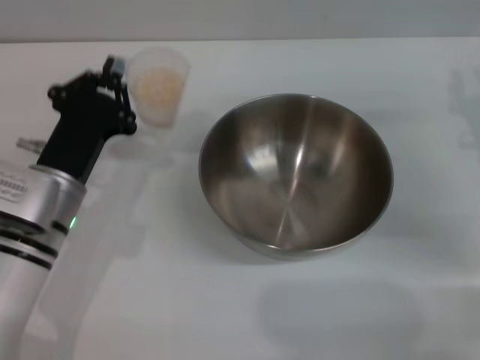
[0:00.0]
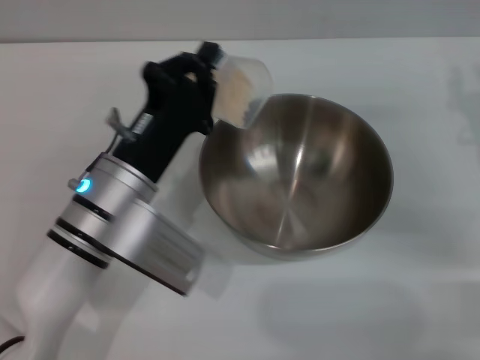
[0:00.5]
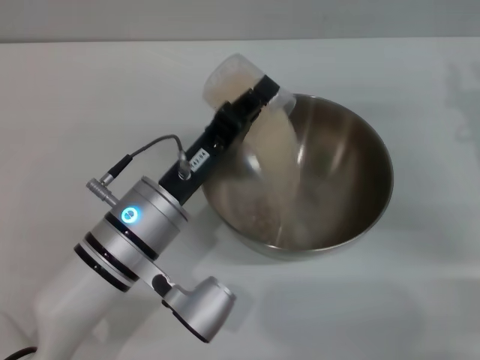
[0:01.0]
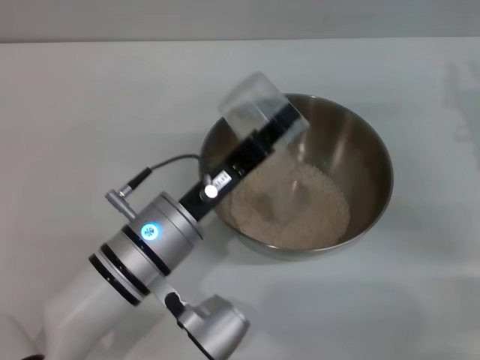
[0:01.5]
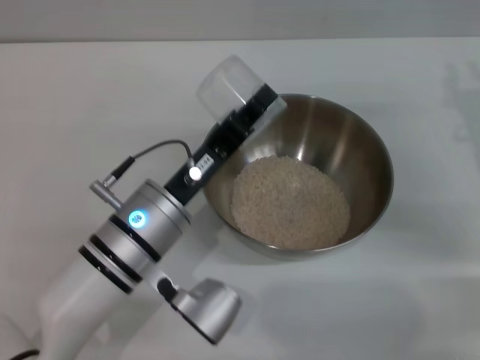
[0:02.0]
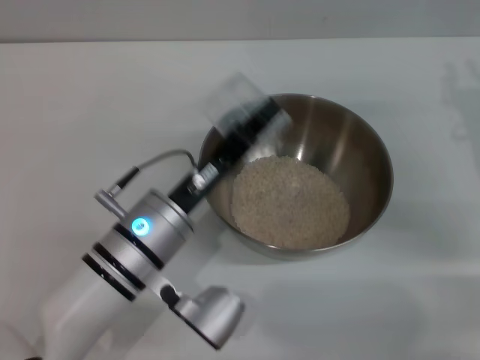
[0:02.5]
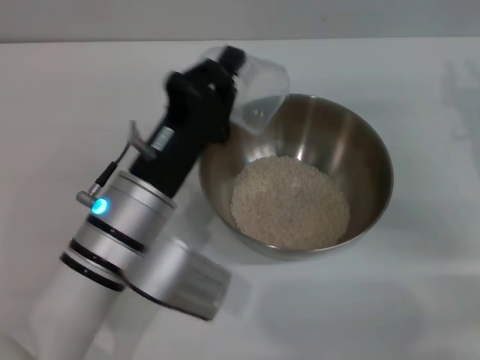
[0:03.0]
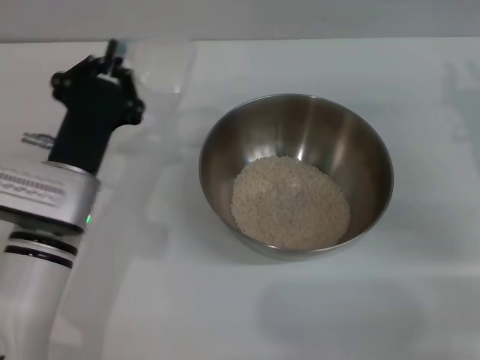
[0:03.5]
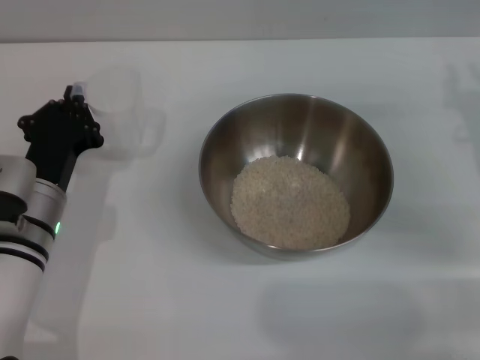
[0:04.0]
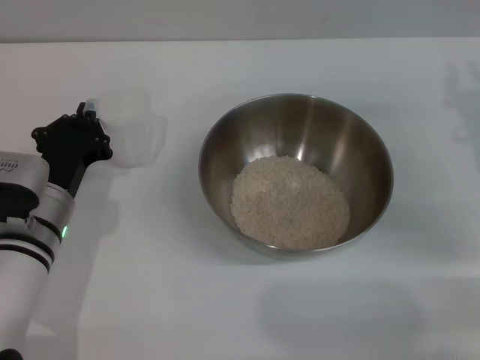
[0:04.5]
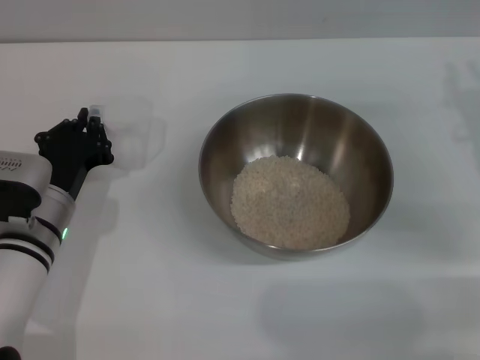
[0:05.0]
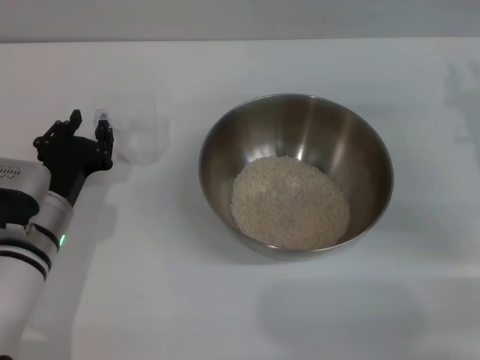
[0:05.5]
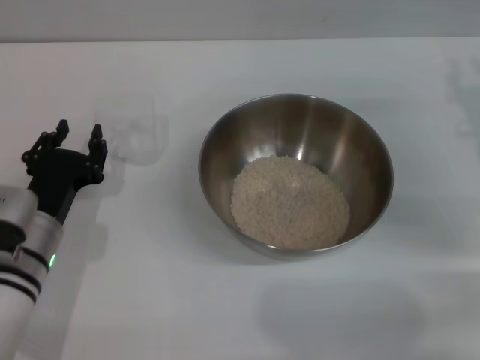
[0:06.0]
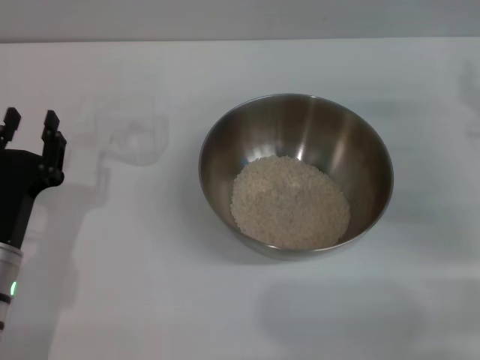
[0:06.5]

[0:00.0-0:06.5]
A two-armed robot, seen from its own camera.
Task of the whole recording: Place the bowl in the middle of the table with one hand and pour the rice from the grain cup into it with the other hand.
Step, 0:00.5 to 0:03.0: Pour the rice from the cup into the bowl with the left gripper.
Step, 0:03.5 to 0:06.0: Place the cup on the table with the left gripper.
0:00.0 to 0:02.0: The left gripper heads to the right, covering approximately 10 cm.
0:02.0 to 0:04.5: The left gripper moves to the left, about 10 cm.
0:04.5 to 0:06.5: The left gripper heads backward, covering approximately 5 cm, and opens up.
